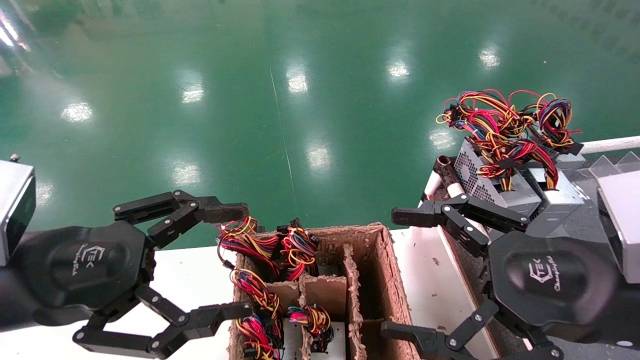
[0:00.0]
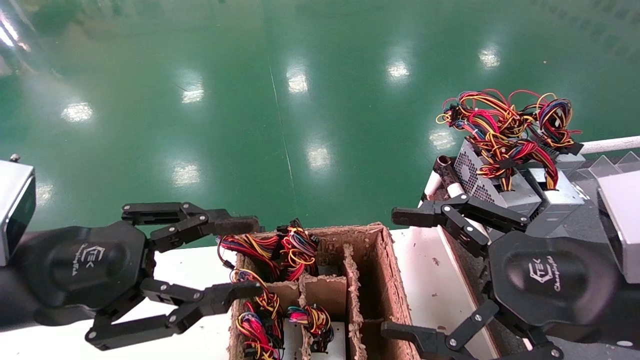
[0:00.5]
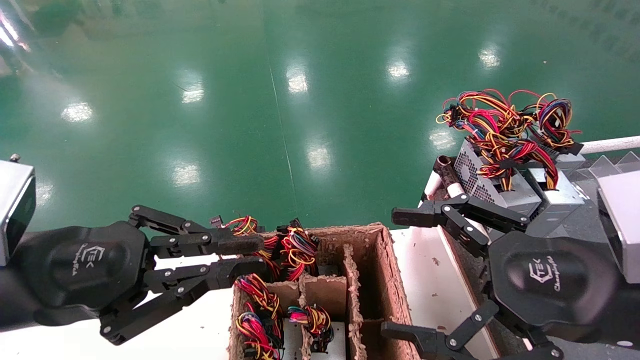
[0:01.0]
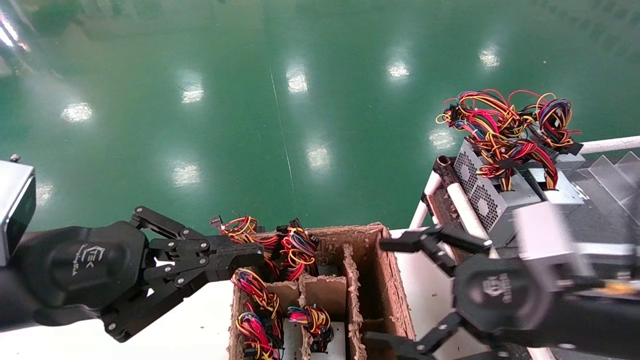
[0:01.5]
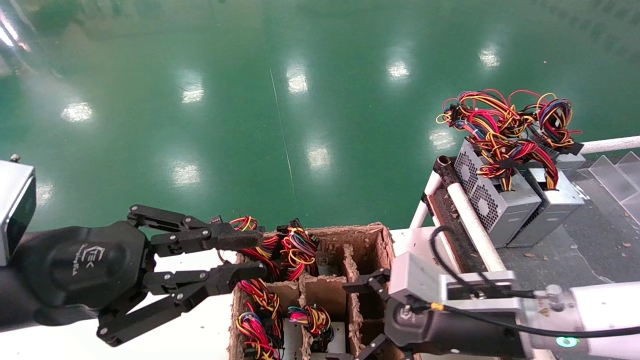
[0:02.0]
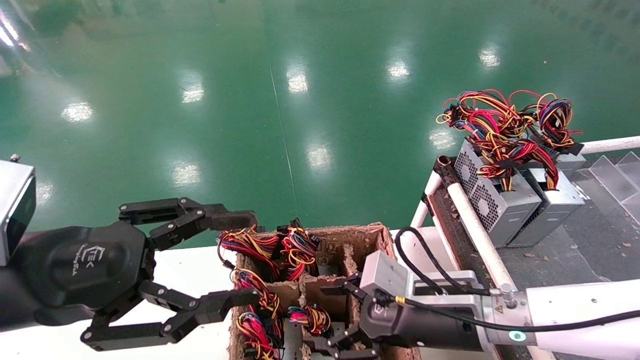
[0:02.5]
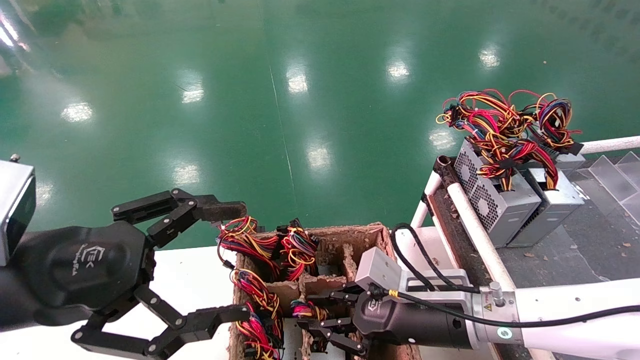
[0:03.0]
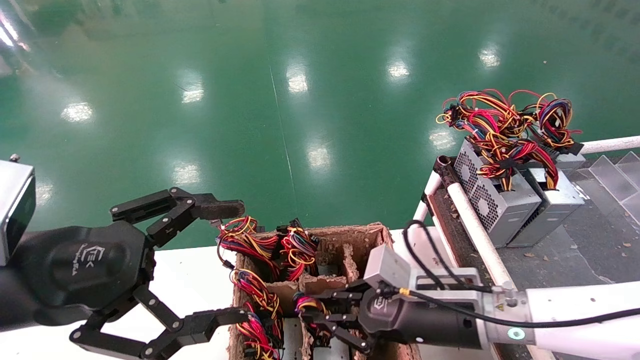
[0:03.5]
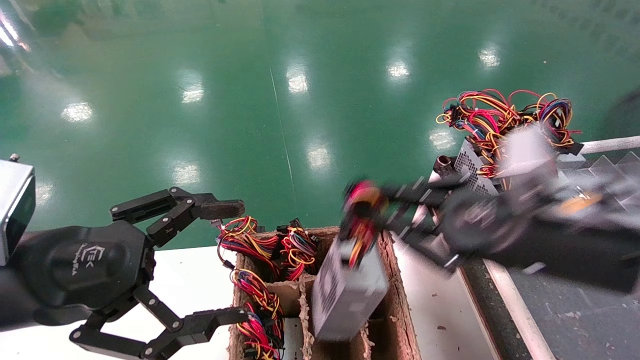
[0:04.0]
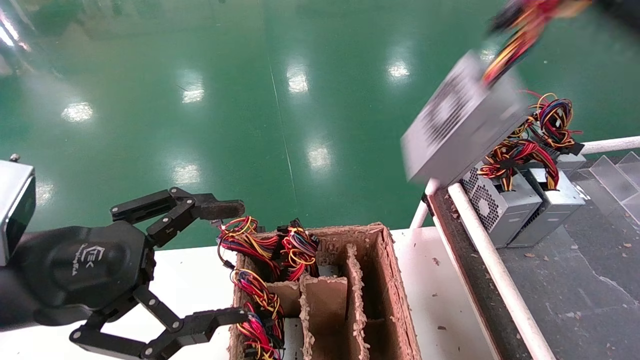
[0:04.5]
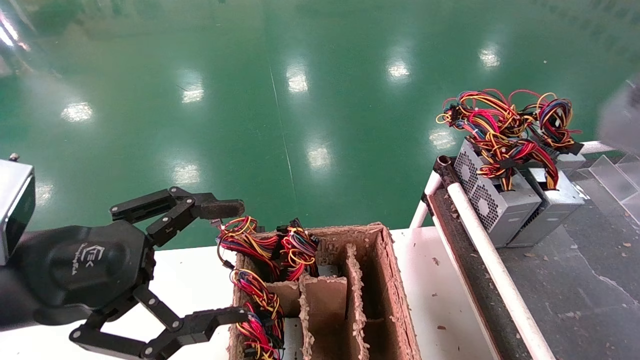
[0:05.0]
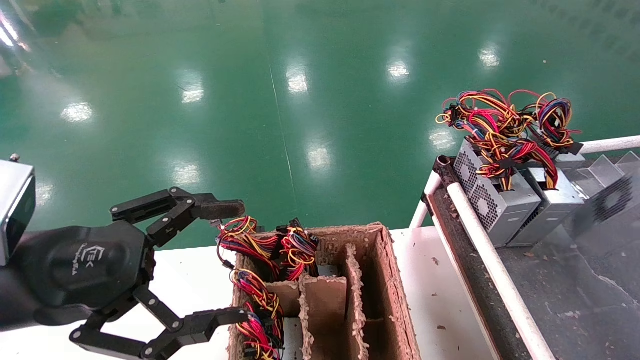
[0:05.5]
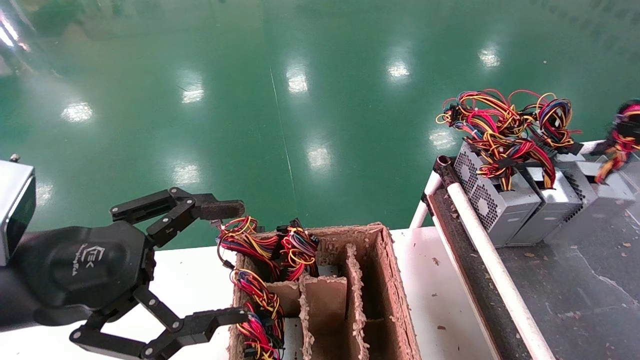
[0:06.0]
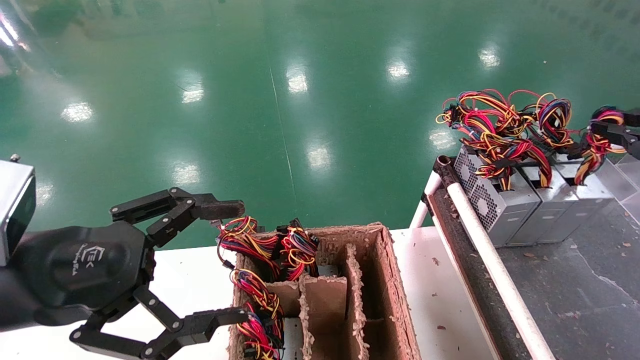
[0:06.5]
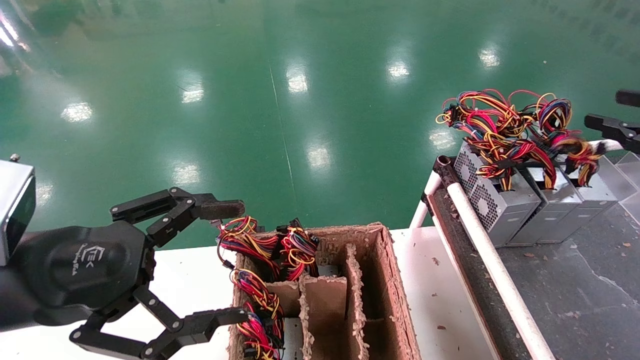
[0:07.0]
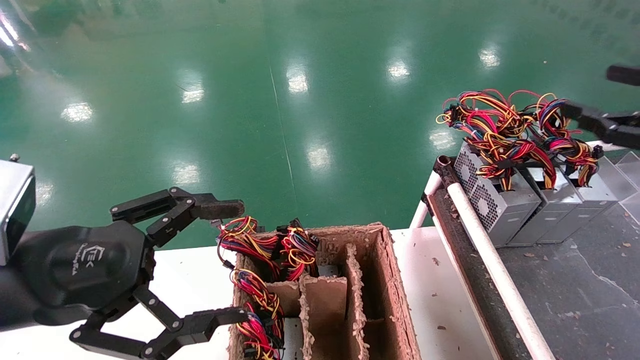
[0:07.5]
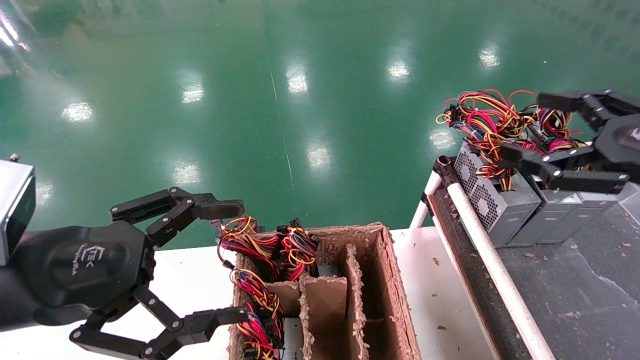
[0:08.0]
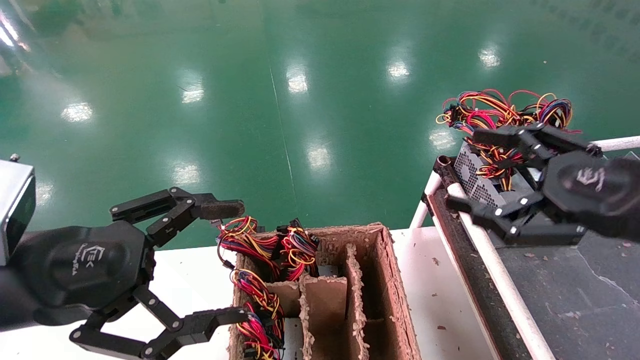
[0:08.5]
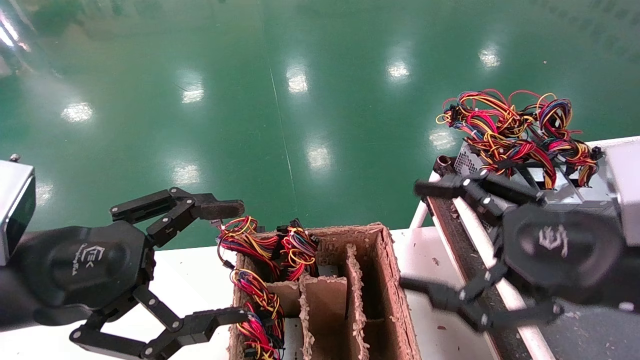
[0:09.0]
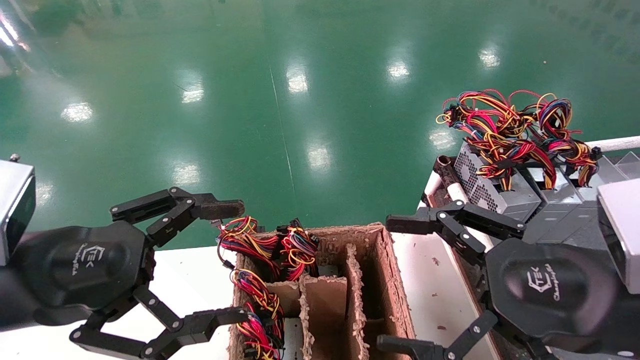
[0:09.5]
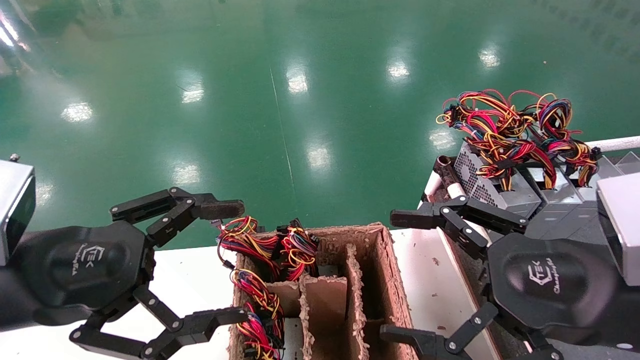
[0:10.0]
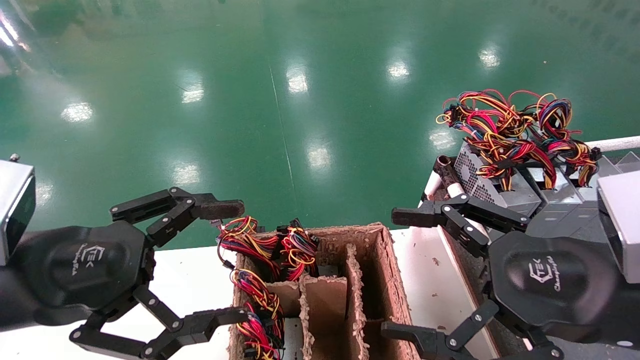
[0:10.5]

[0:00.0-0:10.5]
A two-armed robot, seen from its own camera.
Step, 0:02.0 to 0:03.0: Grab and lift the power supply from the large box.
Step, 0:03.5 to 0:06.5: Place the power supply on the operating table.
0:00.0 to 0:02.0: The left gripper closes. The right gripper goes roughly 15 cm downward, forward and to the left.
0:02.0 to 0:04.0: The left gripper opens up; the right gripper travels upward and to the right by about 15 cm, and closes.
0:04.0 to 0:06.5: The right gripper is displaced to the right by some 25 cm.
0:06.5 to 0:08.5: The right gripper moves to the left, about 15 cm, and opens its fingers.
0:08.5 to 0:10.5: The right gripper shifts about 5 cm to the left.
